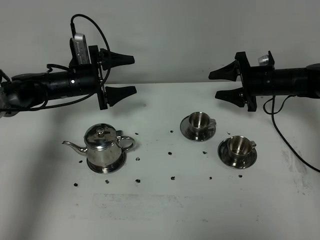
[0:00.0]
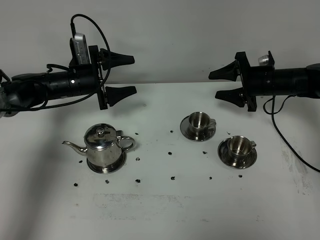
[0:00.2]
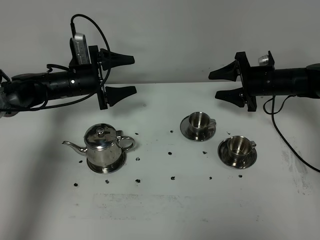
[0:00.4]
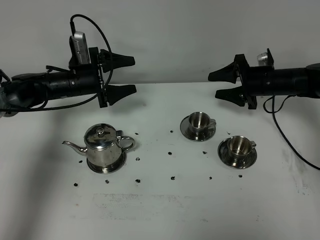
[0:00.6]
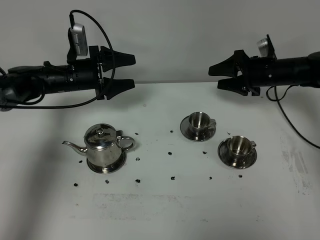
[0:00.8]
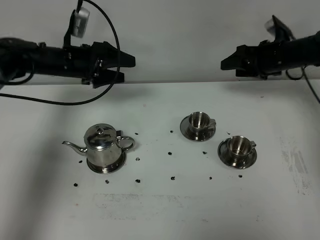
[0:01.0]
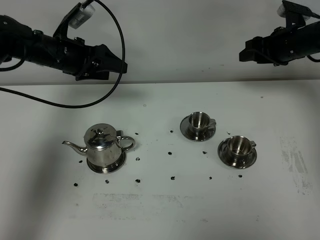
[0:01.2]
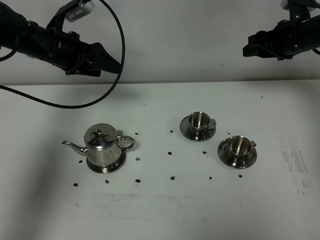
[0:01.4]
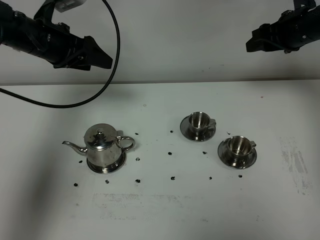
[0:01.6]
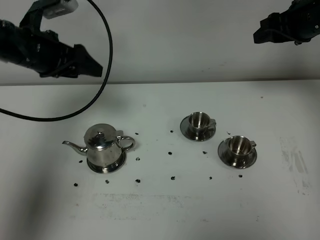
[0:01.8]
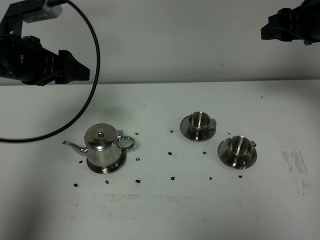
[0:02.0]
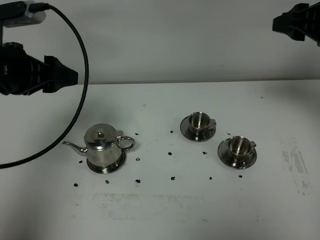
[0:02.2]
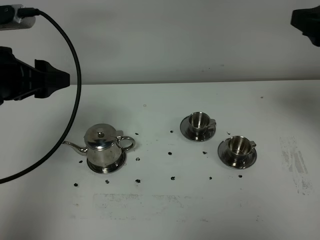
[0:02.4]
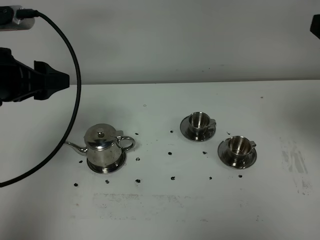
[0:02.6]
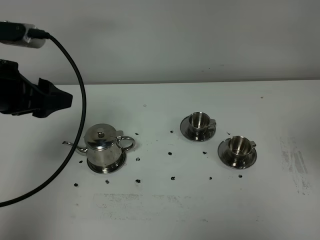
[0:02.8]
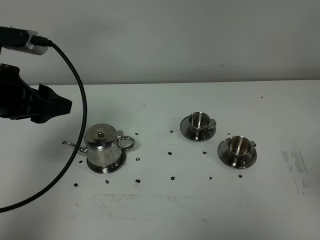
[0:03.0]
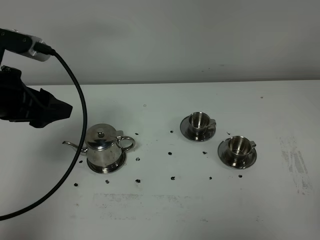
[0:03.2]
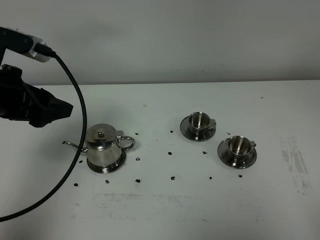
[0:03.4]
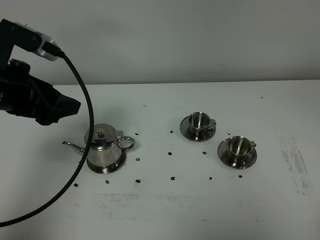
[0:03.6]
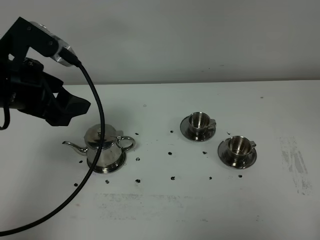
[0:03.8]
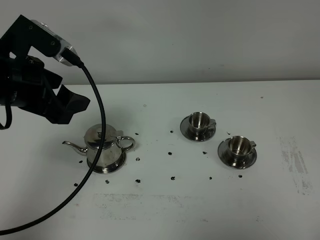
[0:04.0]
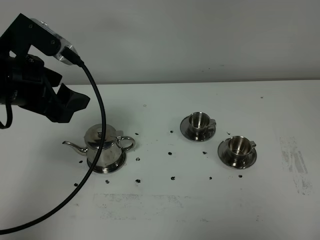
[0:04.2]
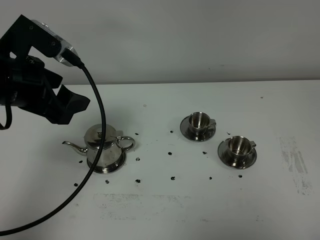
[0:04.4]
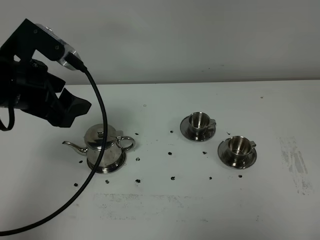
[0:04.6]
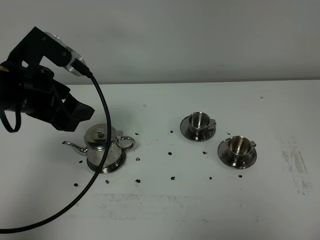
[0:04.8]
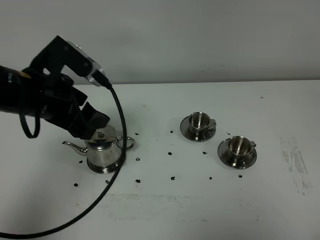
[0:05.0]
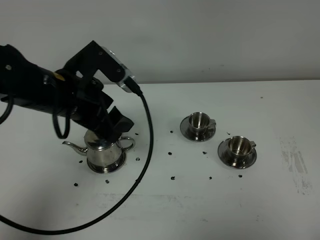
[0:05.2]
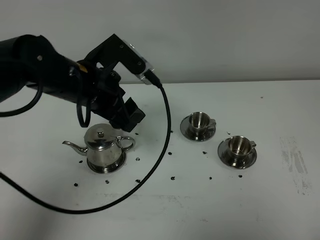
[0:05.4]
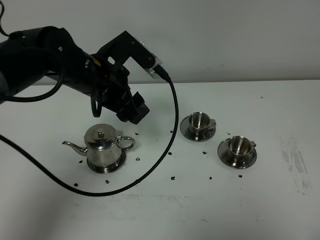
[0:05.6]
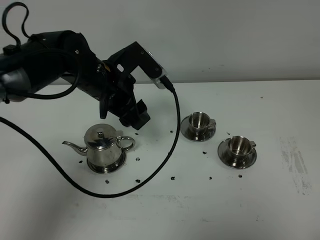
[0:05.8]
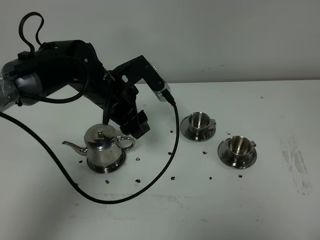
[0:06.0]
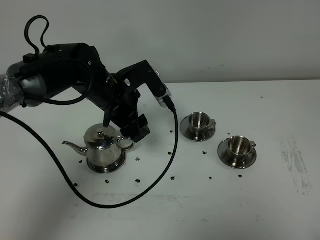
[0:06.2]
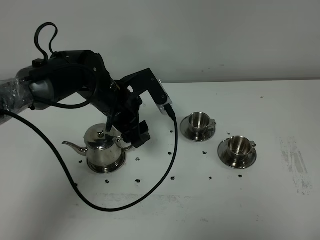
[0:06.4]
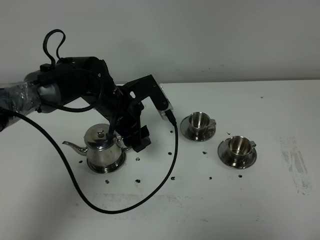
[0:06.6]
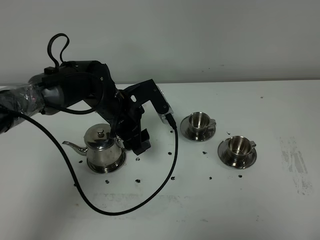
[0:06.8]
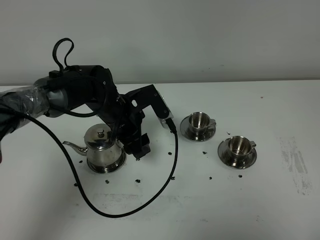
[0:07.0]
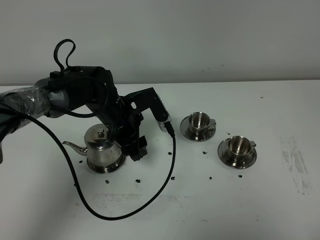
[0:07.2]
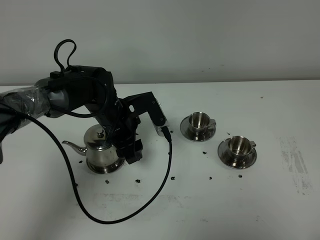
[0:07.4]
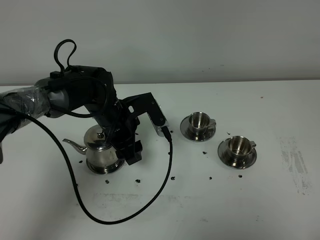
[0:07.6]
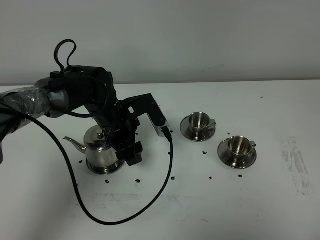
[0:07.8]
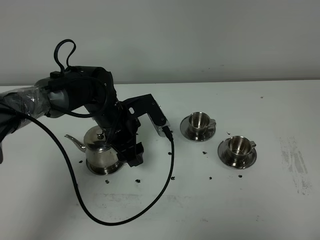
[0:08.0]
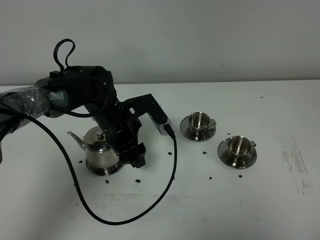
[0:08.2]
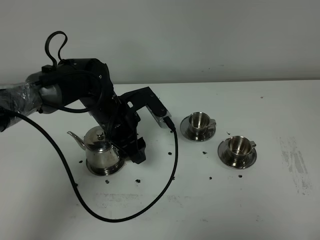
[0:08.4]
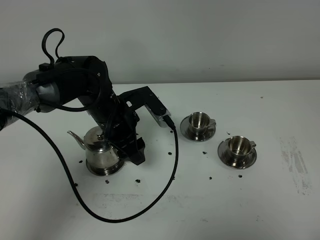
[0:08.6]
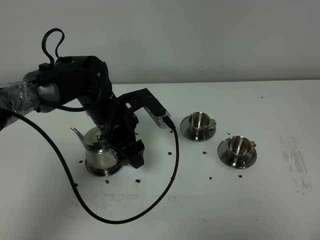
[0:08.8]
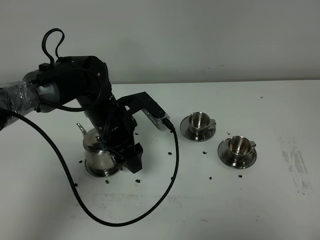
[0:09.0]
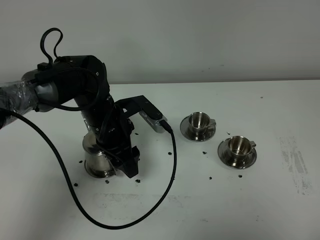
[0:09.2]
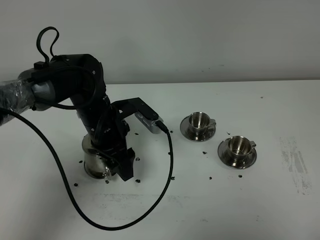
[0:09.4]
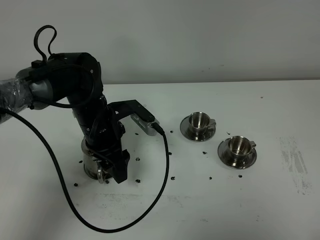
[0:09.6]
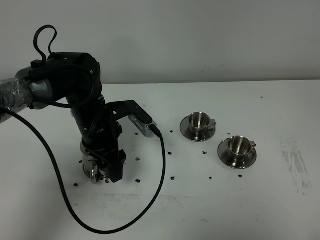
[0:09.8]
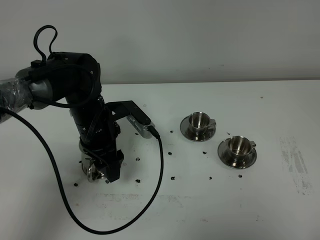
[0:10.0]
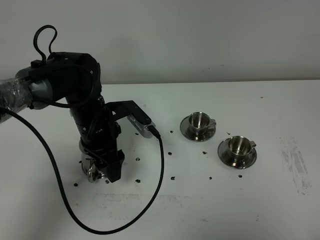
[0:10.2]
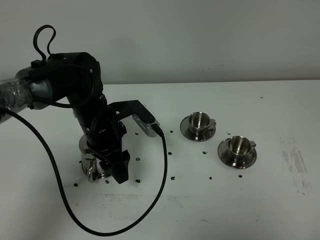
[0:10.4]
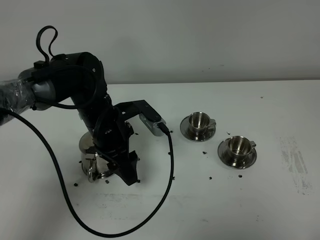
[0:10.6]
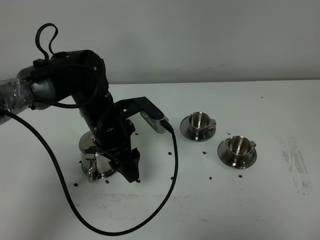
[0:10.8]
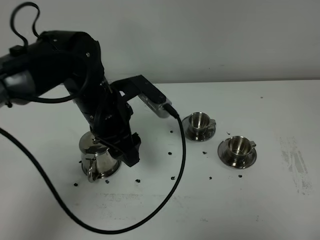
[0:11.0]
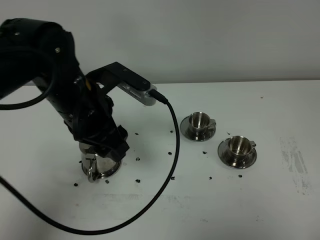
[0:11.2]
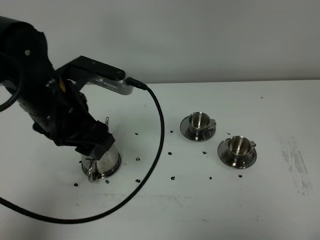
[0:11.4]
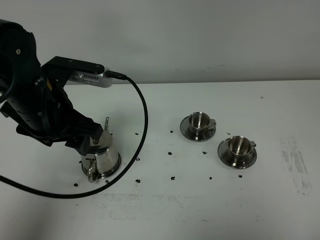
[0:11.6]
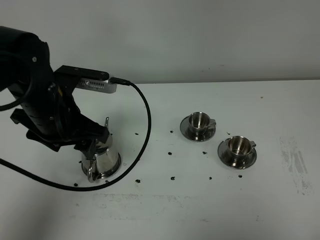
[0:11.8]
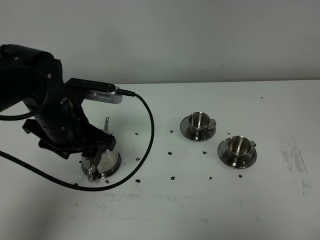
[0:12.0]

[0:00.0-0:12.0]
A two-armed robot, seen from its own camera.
Task of the whole recording: grasp the stainless steel teapot and pour the tea into the two stainless steel teacups one by one, put the stainless steel teapot back in its original place.
0:00.0 to 0:01.6: The grippers both shift upward by approximately 15 cm. The right gripper closes its fingers.
0:01.6 to 0:03.0: The left gripper goes about 15 cm backward. The right gripper moves backward, approximately 40 cm.
0:03.0 to 0:04.4: The right gripper shifts some 15 cm downward and backward, and closes up.
0:04.4 to 0:06.0: The left gripper moves to the right, downward and forward, roughly 20 cm.
0:06.0 to 0:07.6: The left gripper is displaced downward by about 5 cm.
0:07.6 to 0:09.0: There are only small adjustments of the grippers.
0:09.0 to 0:10.4: The grippers make only small movements.
0:10.4 to 0:12.0: The left gripper moves upward, some 5 cm.

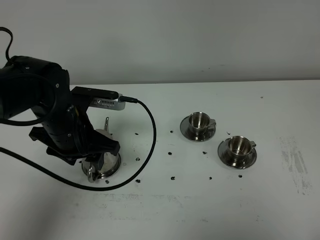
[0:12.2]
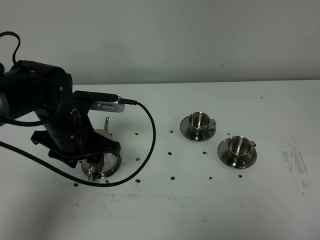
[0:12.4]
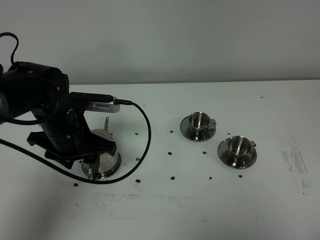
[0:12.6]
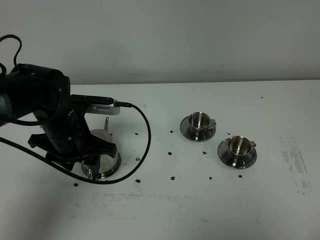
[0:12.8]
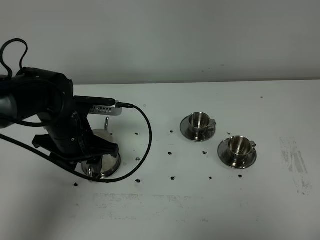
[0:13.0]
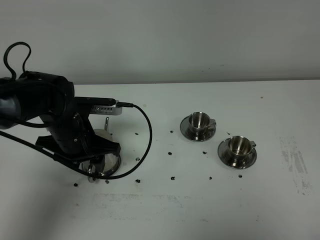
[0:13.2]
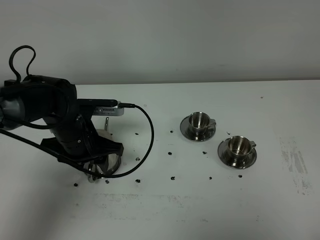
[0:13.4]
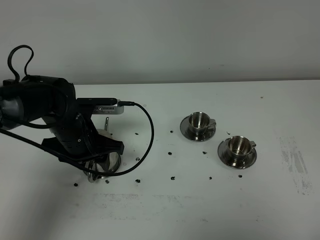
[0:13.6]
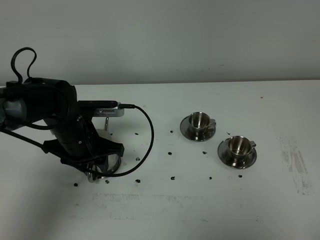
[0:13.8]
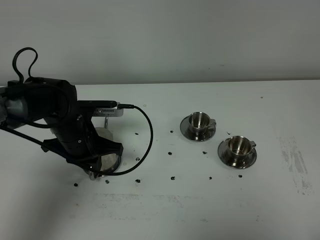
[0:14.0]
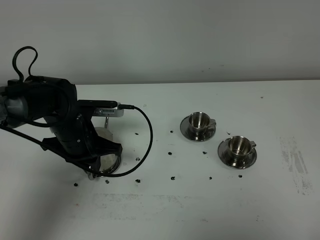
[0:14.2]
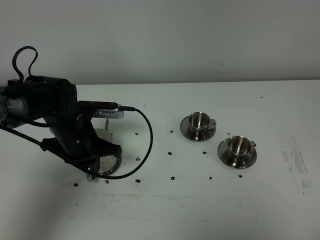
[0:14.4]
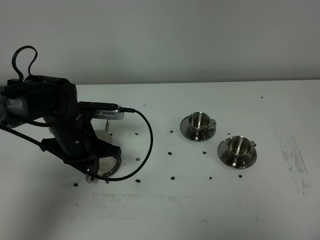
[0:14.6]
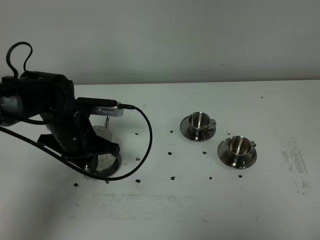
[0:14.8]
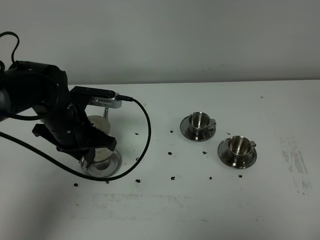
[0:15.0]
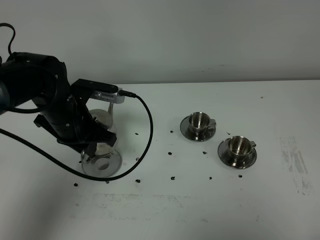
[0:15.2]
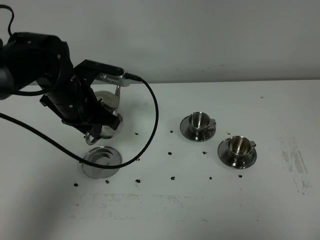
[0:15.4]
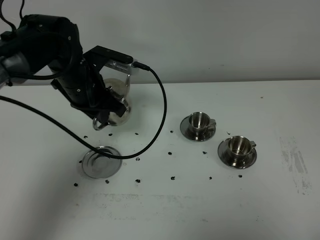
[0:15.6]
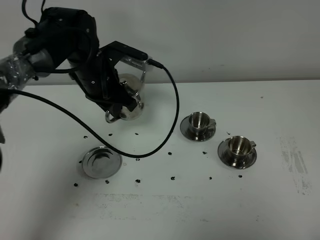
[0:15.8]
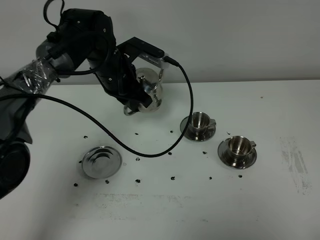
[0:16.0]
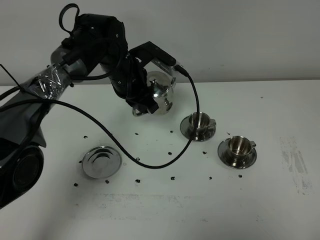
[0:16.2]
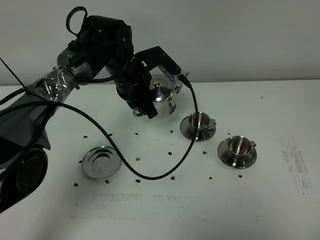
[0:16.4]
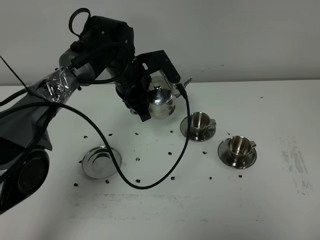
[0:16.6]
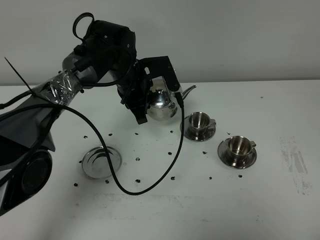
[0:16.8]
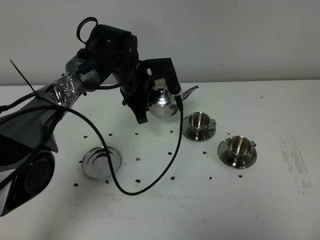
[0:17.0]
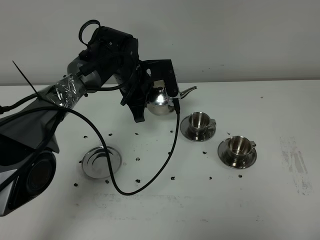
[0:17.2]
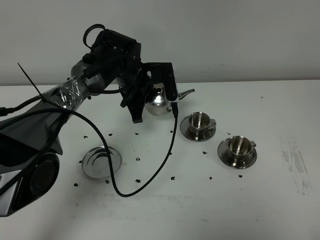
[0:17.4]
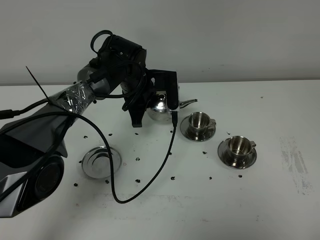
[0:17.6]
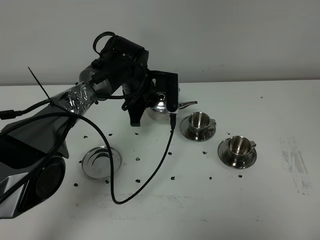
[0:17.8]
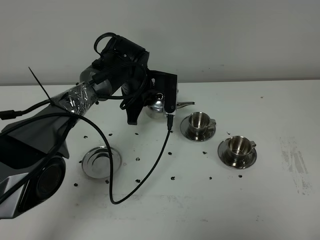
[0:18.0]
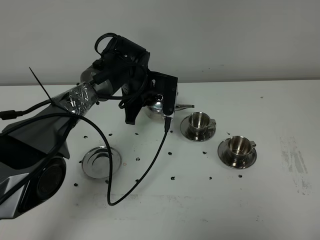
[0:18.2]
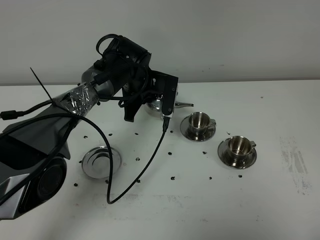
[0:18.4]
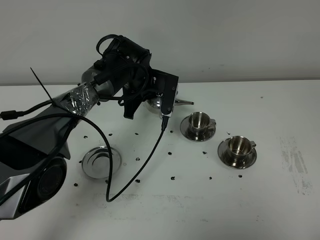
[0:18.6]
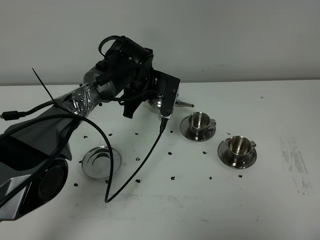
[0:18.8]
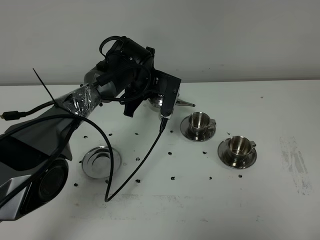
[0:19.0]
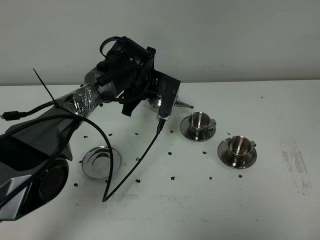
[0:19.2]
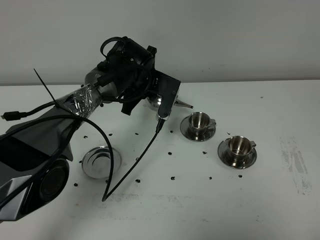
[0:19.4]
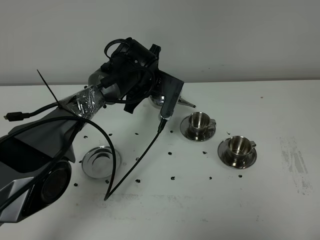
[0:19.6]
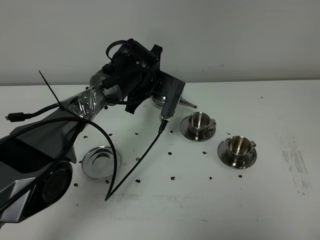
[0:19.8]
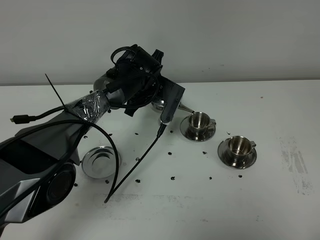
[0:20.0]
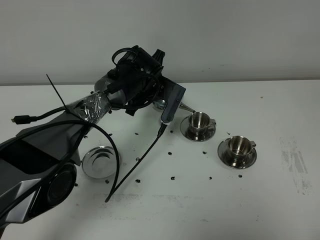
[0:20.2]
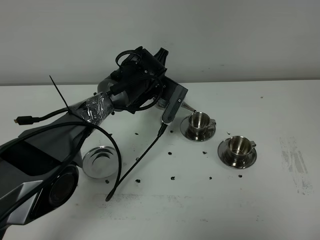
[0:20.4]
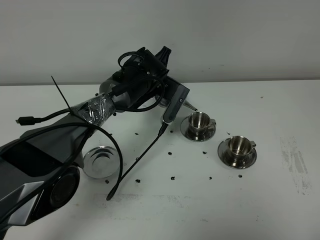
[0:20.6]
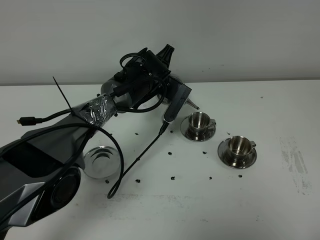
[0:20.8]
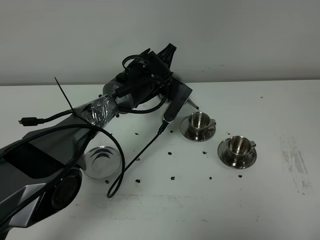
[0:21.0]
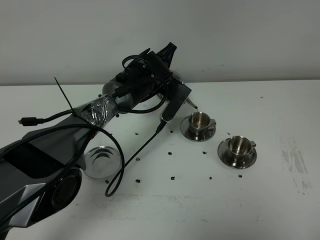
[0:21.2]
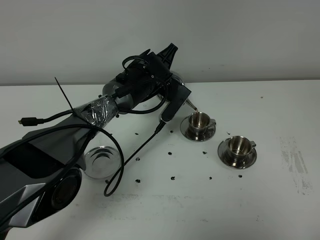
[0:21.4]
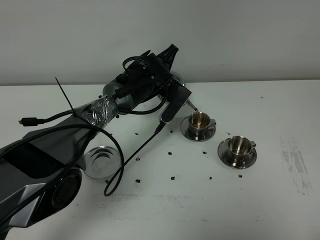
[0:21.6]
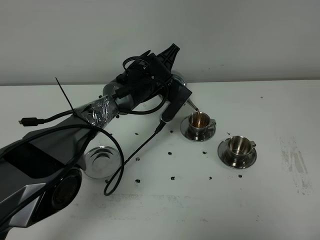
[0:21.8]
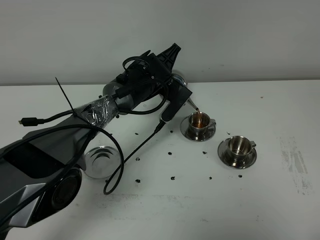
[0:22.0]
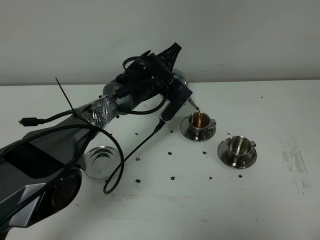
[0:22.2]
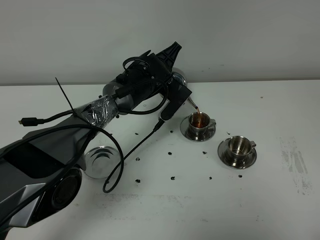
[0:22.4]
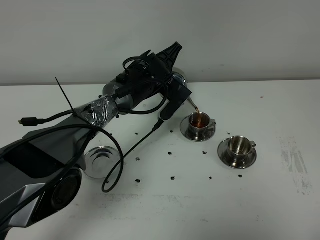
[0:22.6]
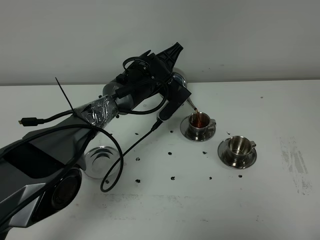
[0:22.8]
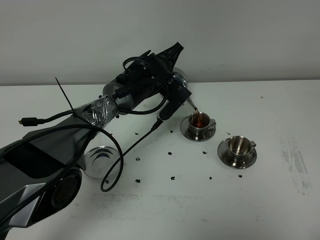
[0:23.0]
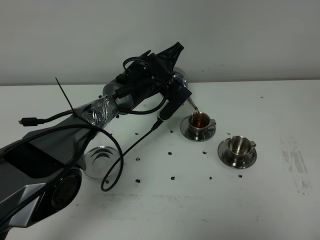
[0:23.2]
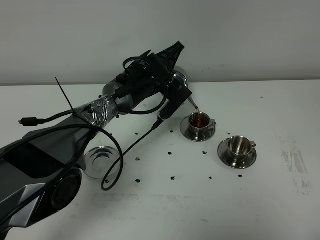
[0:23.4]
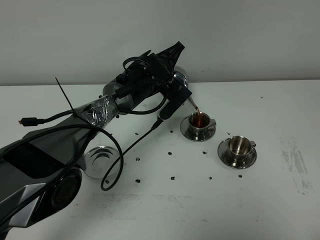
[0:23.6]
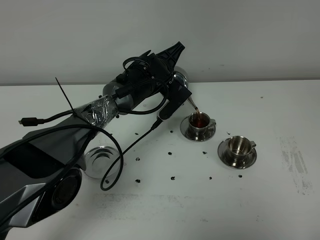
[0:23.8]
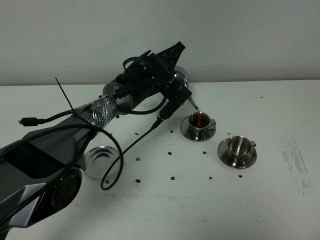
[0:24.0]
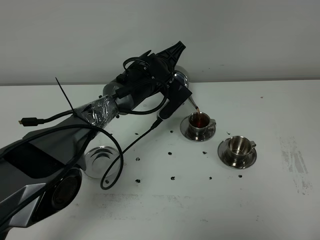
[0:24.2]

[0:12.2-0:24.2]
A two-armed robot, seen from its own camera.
Task of the whole recording: grasp the stainless steel teapot and pour the tea into the two stainless steel teacups one by one, put the stainless steel teapot back in its original place.
Step, 0:12.2 to 0:14.8: Pick up the teapot with the left gripper.
0:12.2 to 0:13.8: The left gripper moves downward, about 5 cm.
0:13.8 to 0:15.2: The left gripper goes about 5 cm upward, and closes.
0:15.2 to 0:16.6: The left gripper travels forward and to the right by some 15 cm.
0:18.2 to 0:19.8: The grippers move only a little.
0:19.8 to 0:21.2: The grippers stay close to where they were, moving slightly.
0:21.2 to 0:22.6: There are only small adjustments of the grippers.
0:22.6 to 0:24.2: Both grippers stay about where they are.
